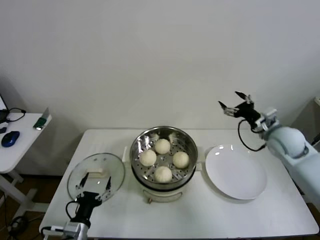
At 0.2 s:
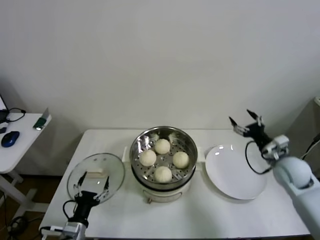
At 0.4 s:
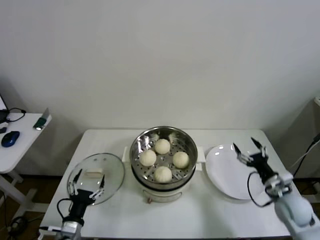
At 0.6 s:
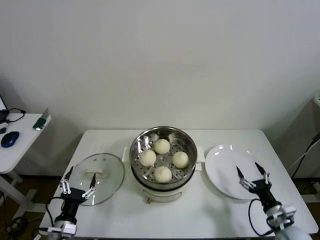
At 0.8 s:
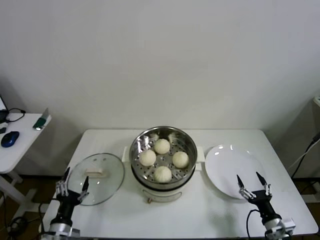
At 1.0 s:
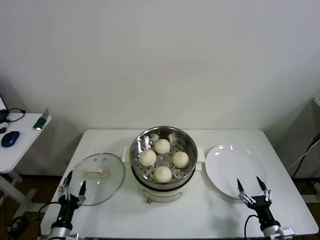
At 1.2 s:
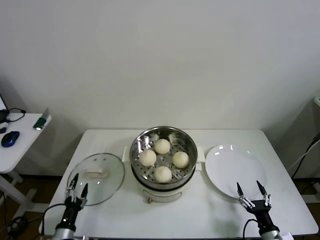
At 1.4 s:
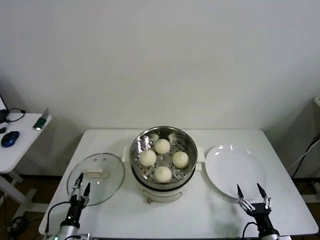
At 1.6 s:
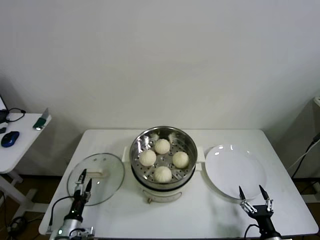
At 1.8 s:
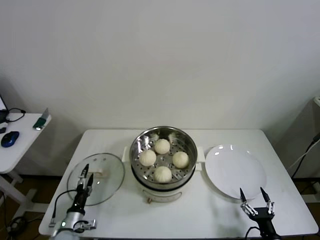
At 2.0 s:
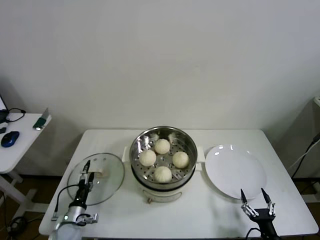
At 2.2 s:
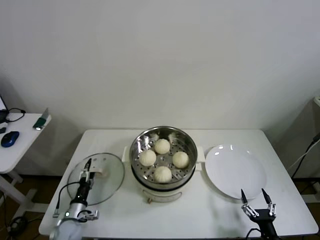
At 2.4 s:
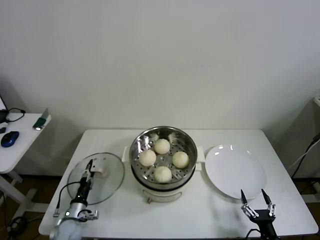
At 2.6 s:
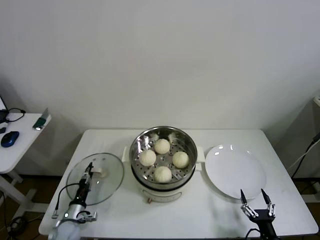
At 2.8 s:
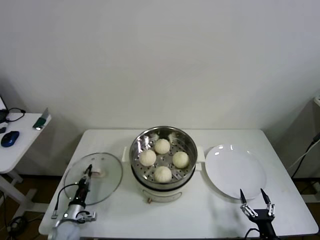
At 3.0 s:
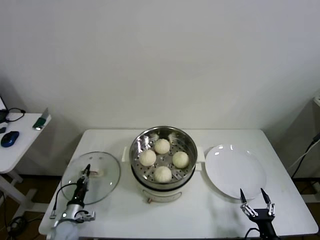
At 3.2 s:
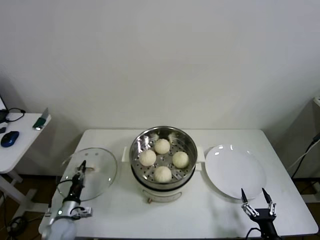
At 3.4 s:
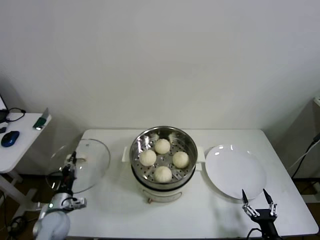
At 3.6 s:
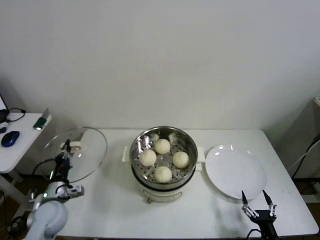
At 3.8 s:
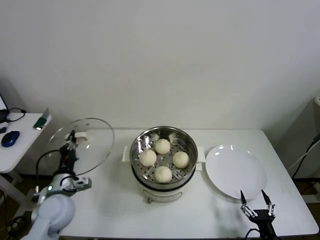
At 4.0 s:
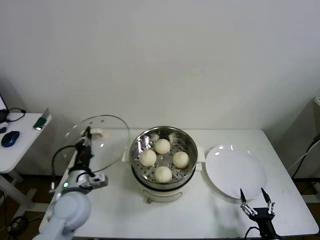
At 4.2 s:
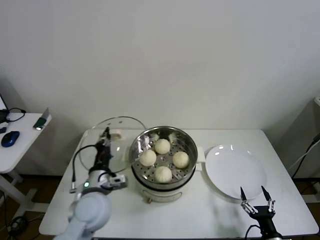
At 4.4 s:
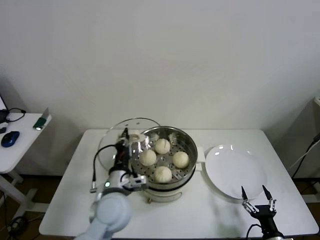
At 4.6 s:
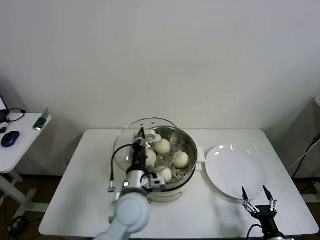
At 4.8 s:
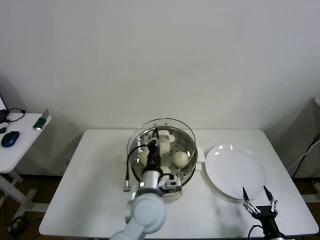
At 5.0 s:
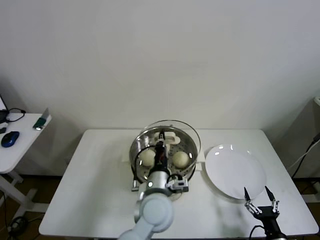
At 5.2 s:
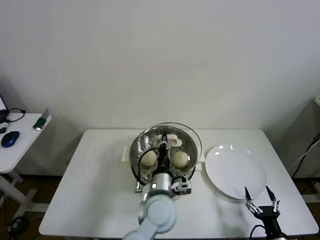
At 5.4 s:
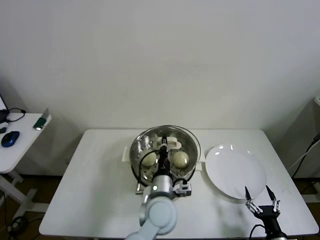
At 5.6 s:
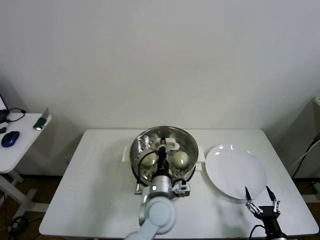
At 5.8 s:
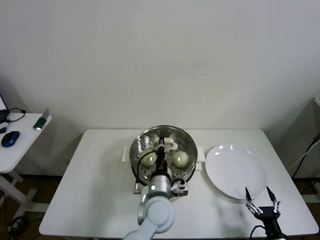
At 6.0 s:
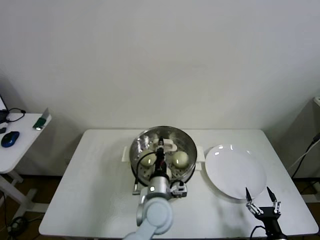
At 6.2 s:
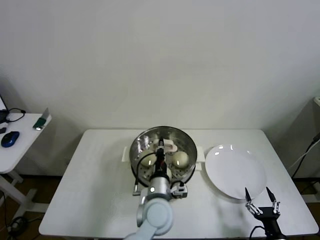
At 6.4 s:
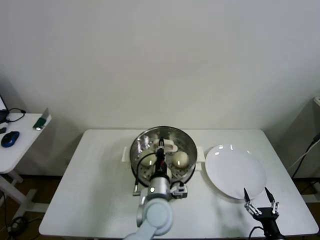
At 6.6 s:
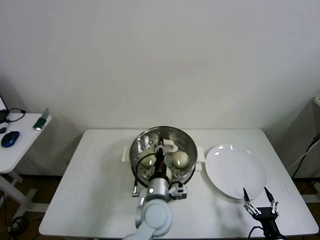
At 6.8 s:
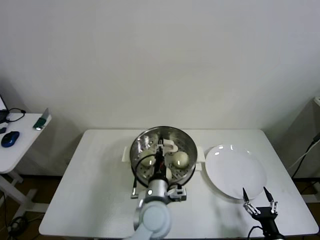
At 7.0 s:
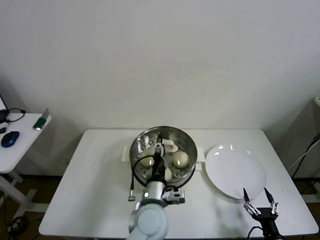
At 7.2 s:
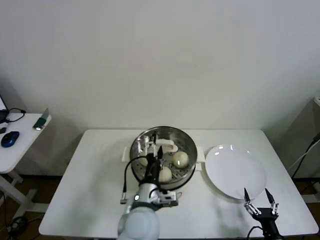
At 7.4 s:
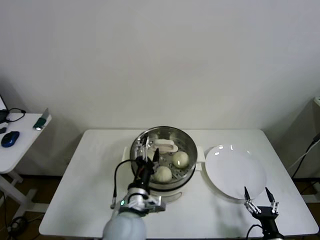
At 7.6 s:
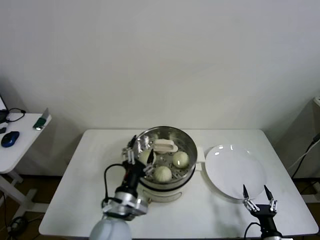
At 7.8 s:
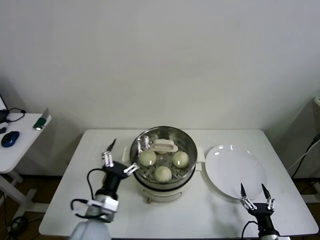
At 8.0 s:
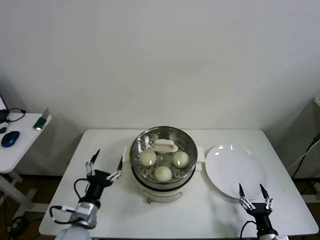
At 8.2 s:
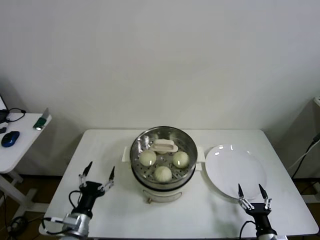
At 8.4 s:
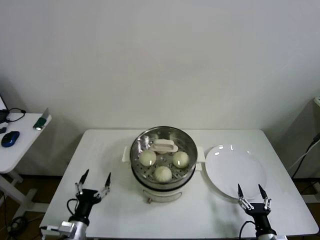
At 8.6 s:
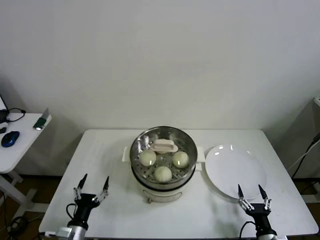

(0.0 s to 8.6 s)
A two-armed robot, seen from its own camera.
Step, 0.0 s - 2.8 s: Grasp the pot lid with left gripper.
Step, 3.0 s - 6.6 s: Place the pot lid on the steamer with left gripper.
0.0 s - 1.4 s: The left gripper moves downward and to the left, approximately 10 cm. The right gripper heads backward and downward, covering some 40 cm.
1.4 s - 2.8 s: The left gripper travels forward by roughly 10 cm, and closes up.
2.8 s - 4.4 s: The left gripper is displaced upward and to the right by about 35 cm.
4.4 s - 5.8 s: The left gripper travels to the right by approximately 15 cm.
5.8 s - 7.2 s: The left gripper moves roughly 5 cm, and opens.
7.2 s - 8.6 s: The left gripper goes roughly 30 cm to the left and downward.
